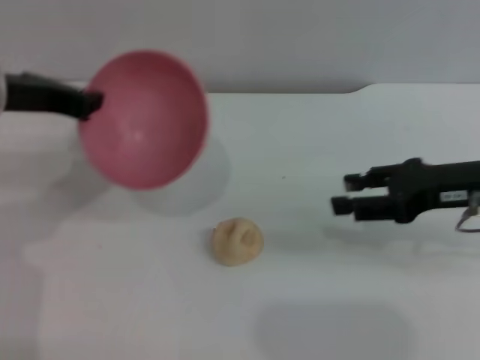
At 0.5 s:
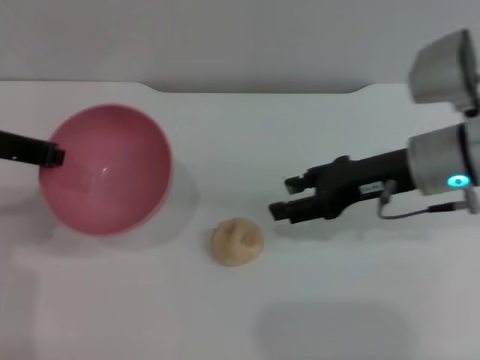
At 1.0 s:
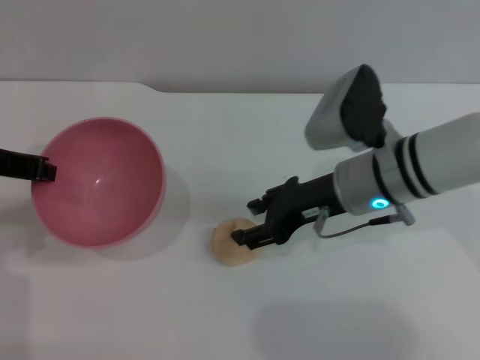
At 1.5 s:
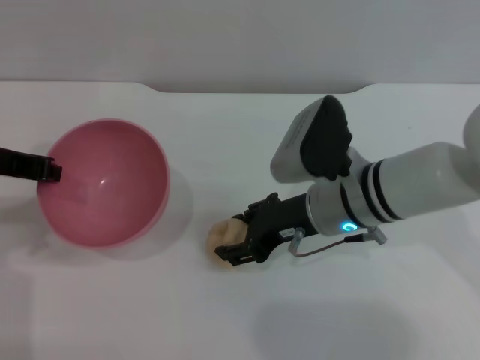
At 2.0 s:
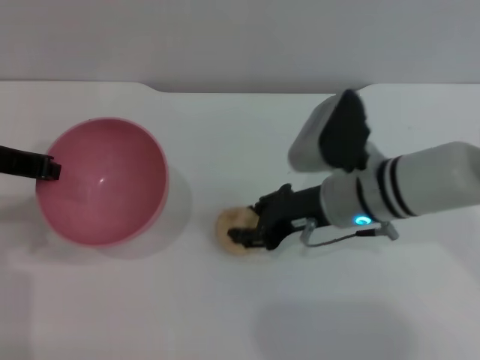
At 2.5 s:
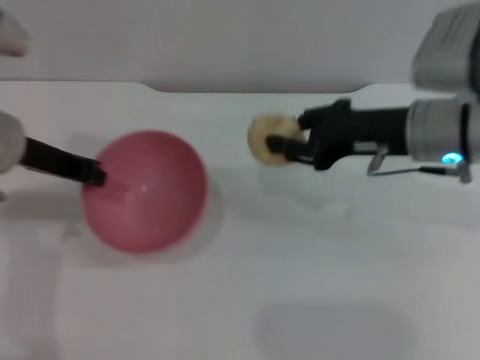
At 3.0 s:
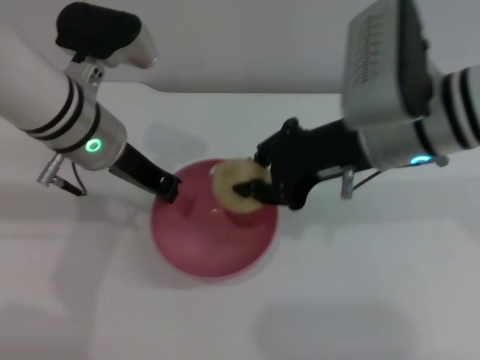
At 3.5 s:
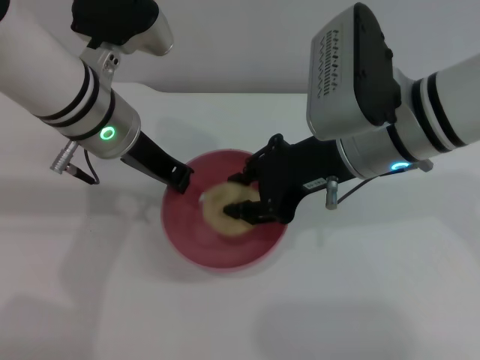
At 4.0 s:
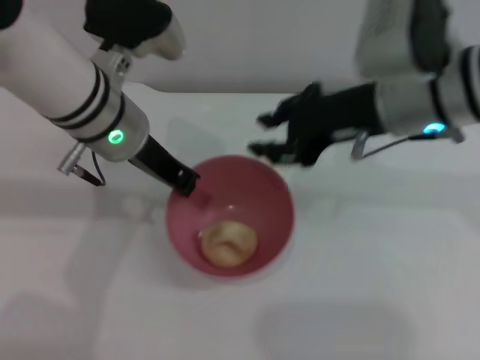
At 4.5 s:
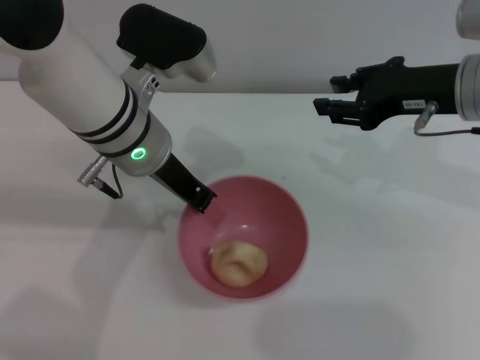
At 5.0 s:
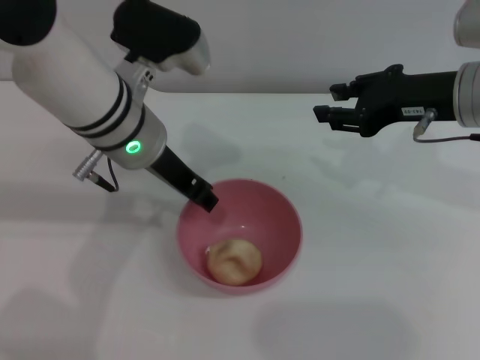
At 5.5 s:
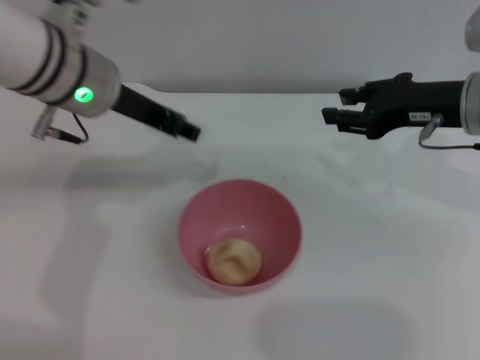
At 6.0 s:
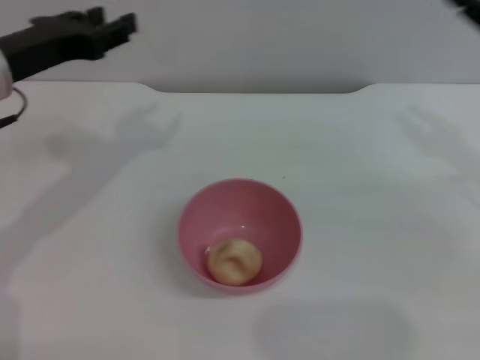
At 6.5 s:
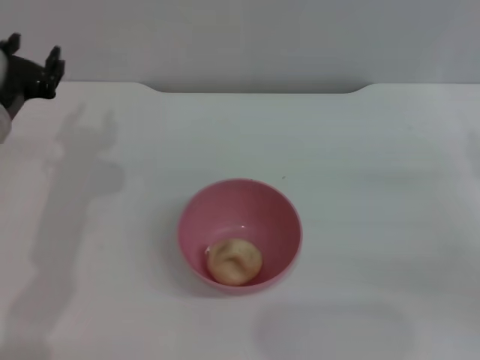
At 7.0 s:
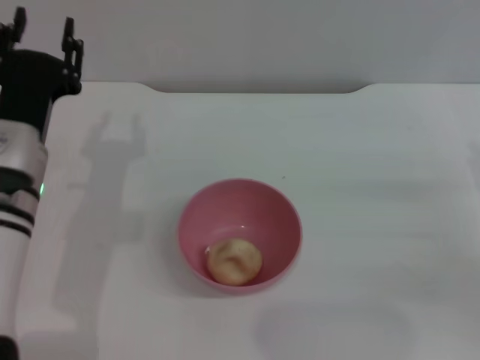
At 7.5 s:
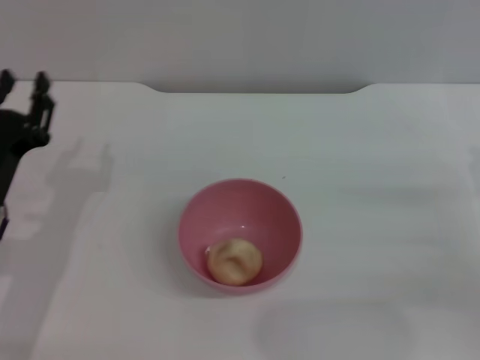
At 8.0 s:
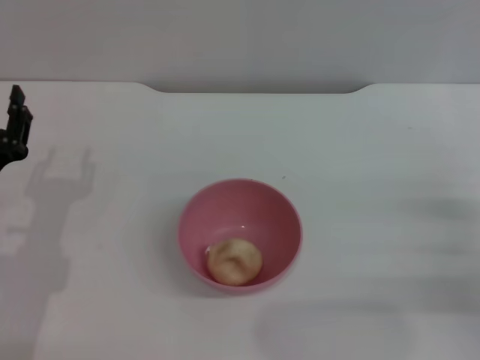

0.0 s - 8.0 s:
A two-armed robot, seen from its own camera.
Task of the whole recording: put the egg yolk pastry into the pink bowl and pour it out repeatedly.
Step, 0.0 s - 2.0 s: Pick up the egg yolk pastry with the right gripper.
Step, 2.5 s - 3.5 s: Place the egg yolk pastry into the bowl.
Step, 4.0 s - 5.0 s: Place the bowl on the table.
0.0 s - 2.0 s: The right gripper moves to the left and downward, roughly 15 cm.
2.0 s - 4.0 s: The left gripper goes about 15 cm to the right; the right gripper travels upward by about 10 cm.
4.0 s - 6.0 s: The left gripper is displaced to the left by approximately 10 cm, and opens. Meanwhile the right gripper moves to the right, roughly 15 cm.
6.0 s - 8.0 s: Both grippers travel together downward and backward, roughly 15 cm.
